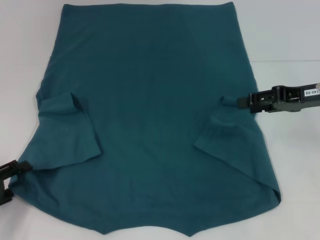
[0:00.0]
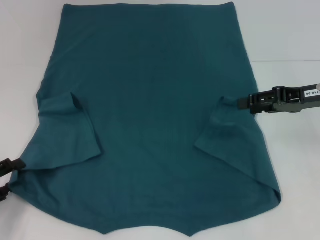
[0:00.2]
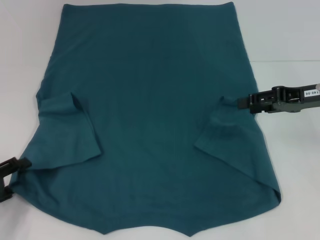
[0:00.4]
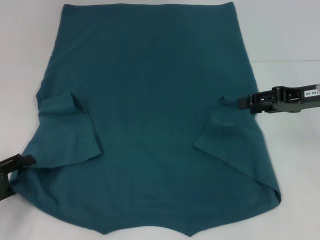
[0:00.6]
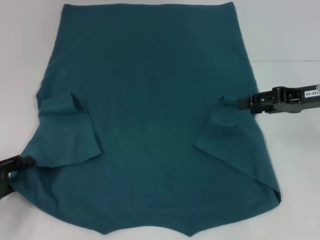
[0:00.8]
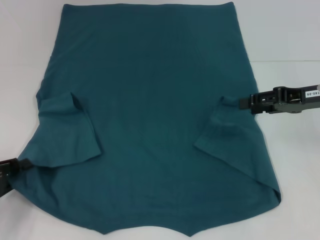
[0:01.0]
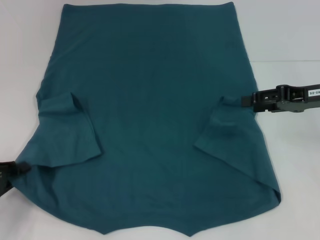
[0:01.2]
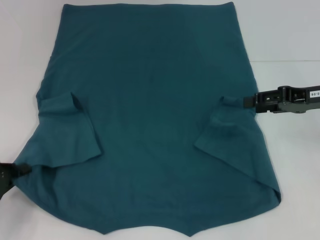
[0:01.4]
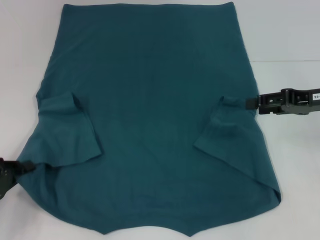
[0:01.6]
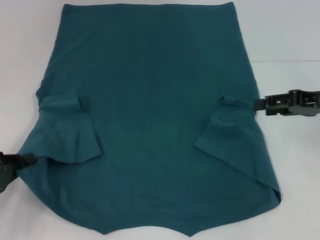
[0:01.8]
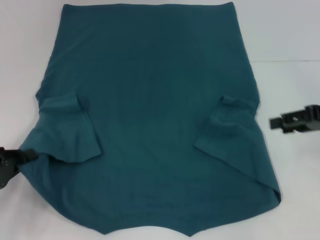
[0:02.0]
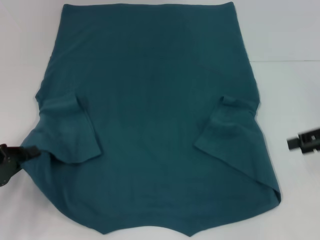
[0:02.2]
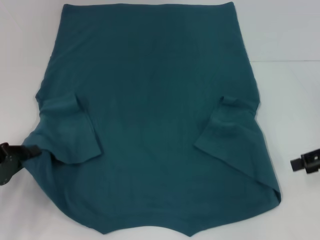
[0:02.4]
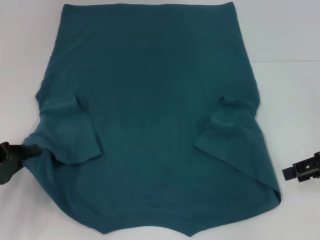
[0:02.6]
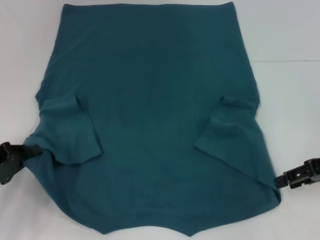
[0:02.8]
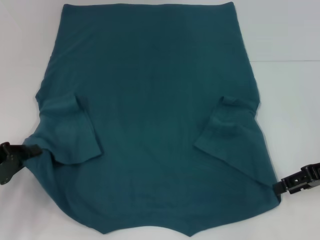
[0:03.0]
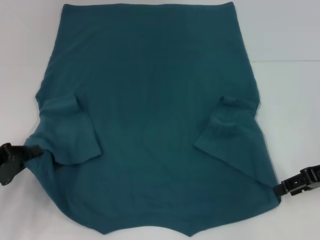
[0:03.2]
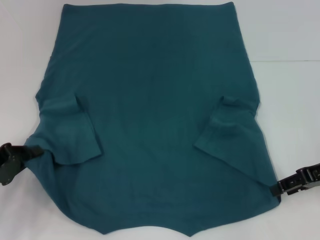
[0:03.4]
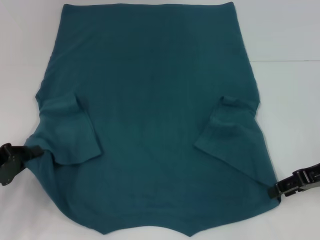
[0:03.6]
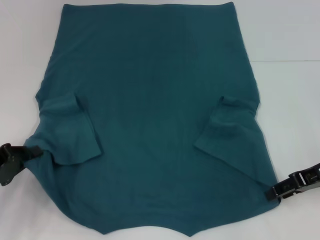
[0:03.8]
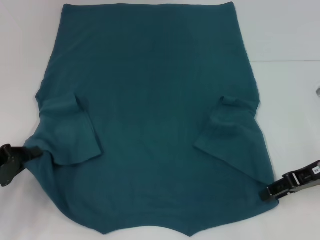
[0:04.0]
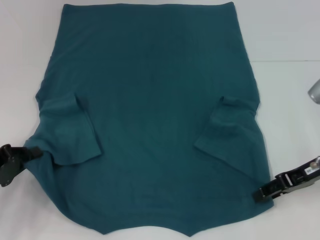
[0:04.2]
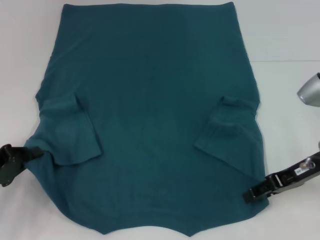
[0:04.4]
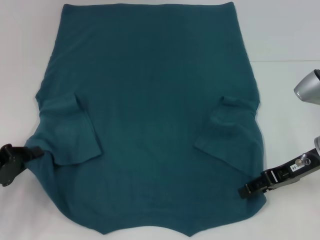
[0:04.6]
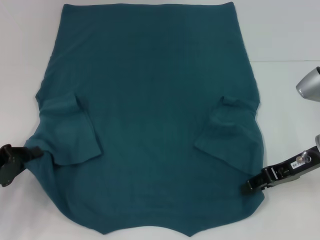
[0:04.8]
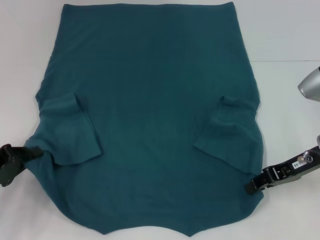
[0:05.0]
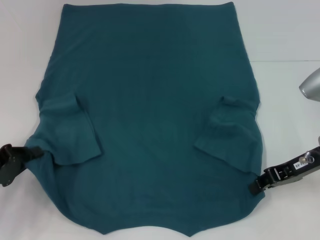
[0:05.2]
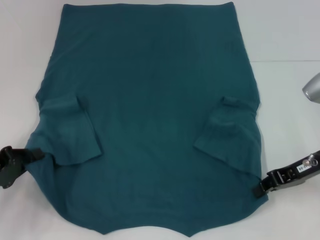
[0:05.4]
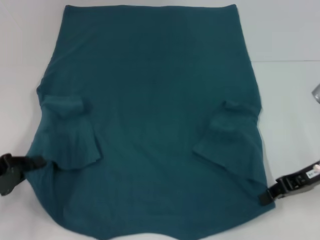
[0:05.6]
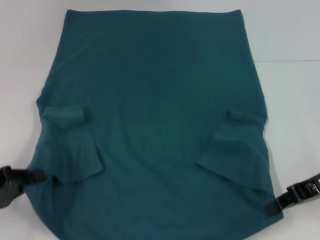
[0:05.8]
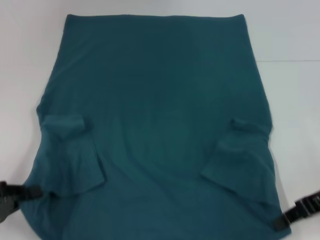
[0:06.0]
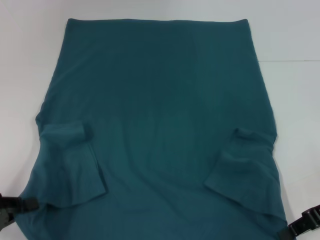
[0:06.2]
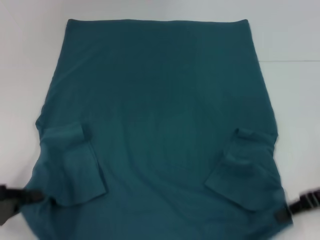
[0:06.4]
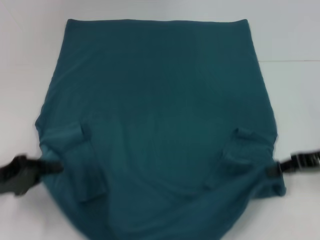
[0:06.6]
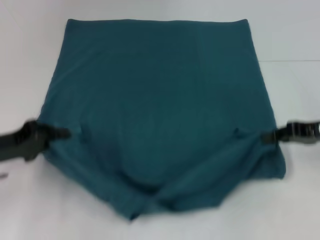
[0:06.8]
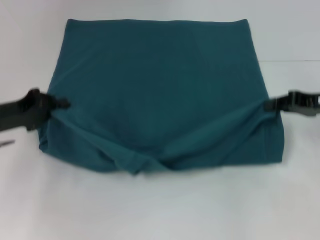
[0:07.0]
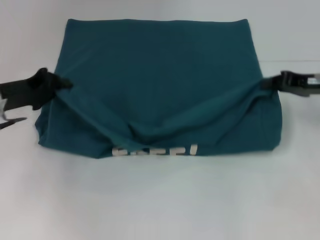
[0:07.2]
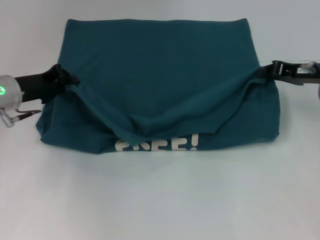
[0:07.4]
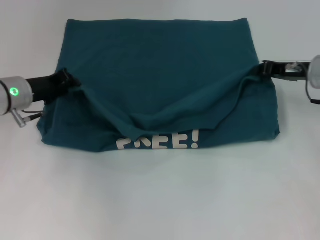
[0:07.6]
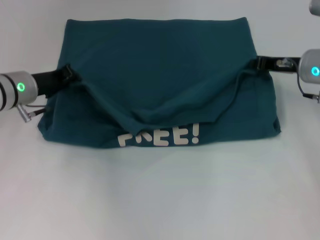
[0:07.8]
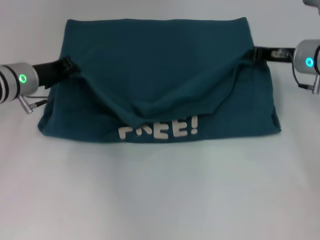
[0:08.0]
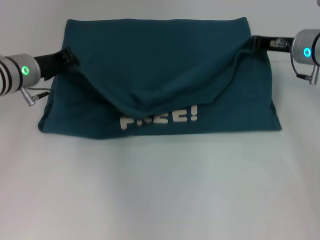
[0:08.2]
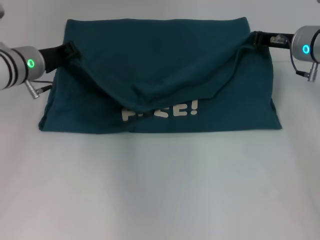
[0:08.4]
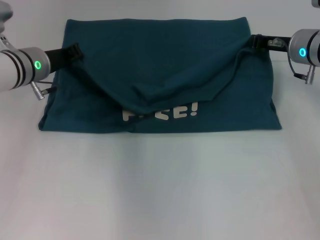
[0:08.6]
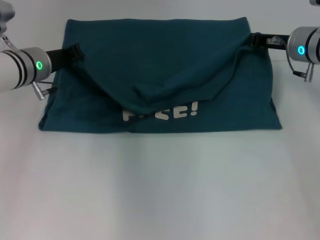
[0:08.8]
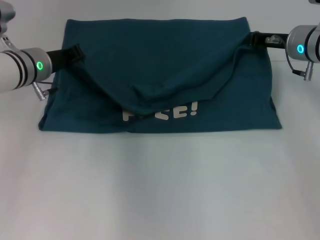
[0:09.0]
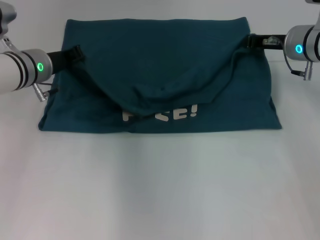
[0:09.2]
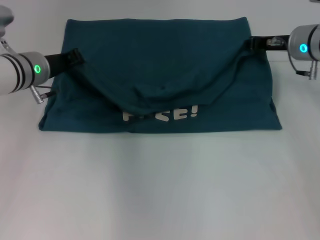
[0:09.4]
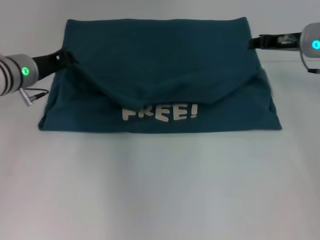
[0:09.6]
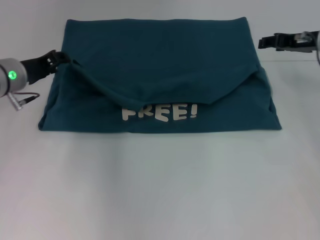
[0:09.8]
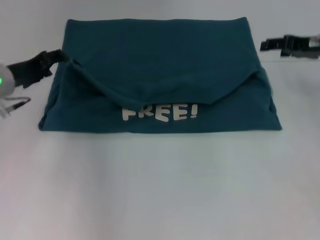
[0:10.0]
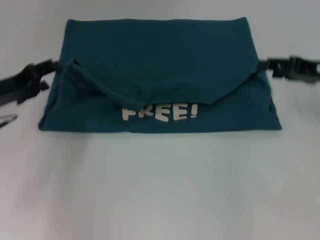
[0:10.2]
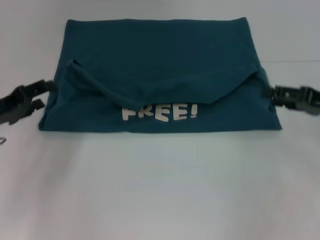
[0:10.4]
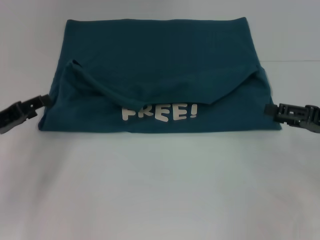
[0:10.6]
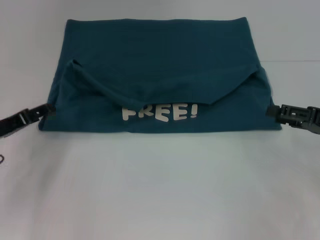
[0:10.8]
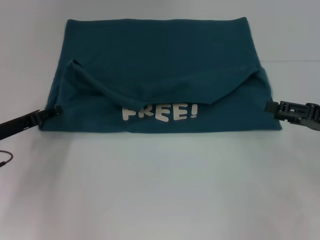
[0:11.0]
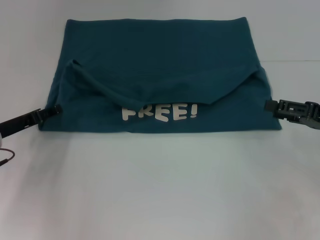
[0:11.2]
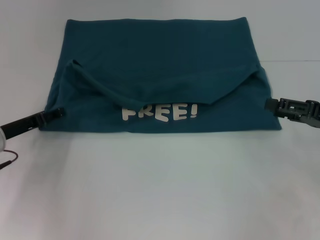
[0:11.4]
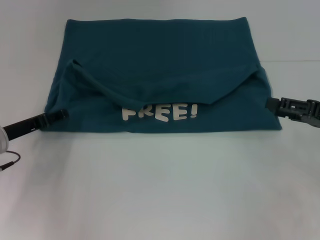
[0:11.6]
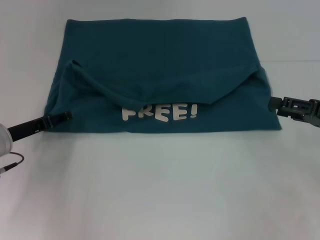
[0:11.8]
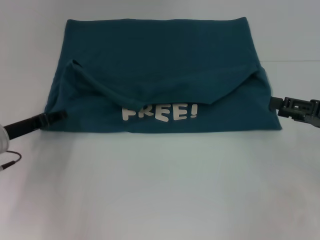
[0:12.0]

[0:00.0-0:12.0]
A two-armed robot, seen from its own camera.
Step, 0:01.4 to 0:05.4: Grab the bottom right corner with your right hand.
Step, 0:05.6 to 0:09.8: Fold the clothes to the left.
Step, 0:05.6 to 0:09.8: Fold the clothes to the right.
0:00.0 to 0:01.6: The left gripper closes its fingers.
0:01.6 to 0:03.0: The right gripper moves some 5 cm.
0:03.0 to 0:04.4: The right gripper heads to the left, covering approximately 5 cm.
0:04.4 to 0:06.0: The right gripper closes.
0:06.0 to 0:07.6: The left gripper moves forward and to the right, roughly 20 cm, while the right gripper travels forward by approximately 10 cm.
0:07.6 to 0:09.0: The right gripper moves roughly 5 cm, while the left gripper shifts by about 5 cm.
0:09.0 to 0:10.4: The right gripper is displaced backward and to the right by about 15 cm, and opens up; the left gripper heads backward and to the left, covering some 15 cm, and opens.
0:10.4 to 0:12.0: The left gripper changes place by roughly 5 cm.

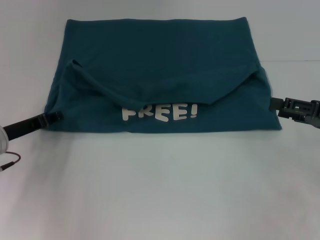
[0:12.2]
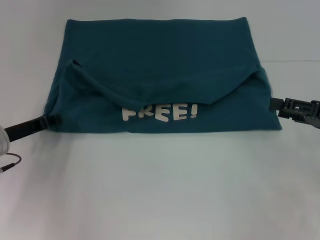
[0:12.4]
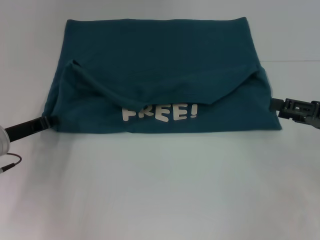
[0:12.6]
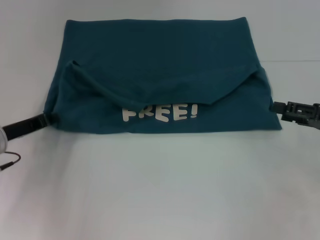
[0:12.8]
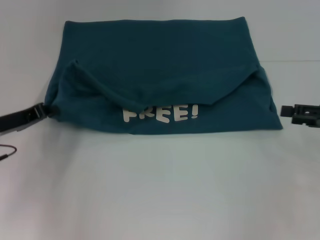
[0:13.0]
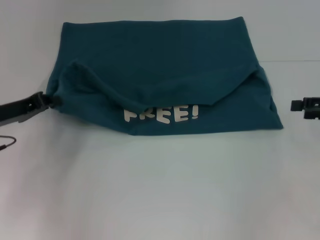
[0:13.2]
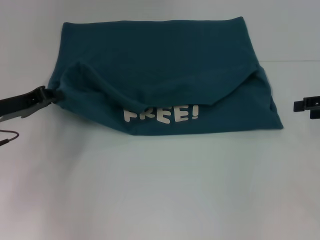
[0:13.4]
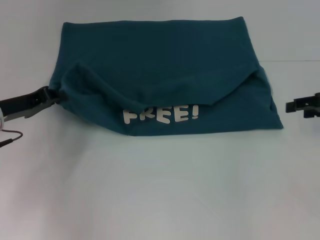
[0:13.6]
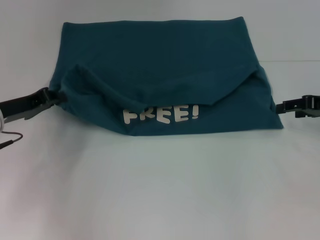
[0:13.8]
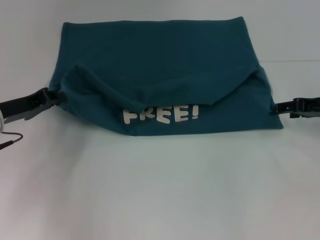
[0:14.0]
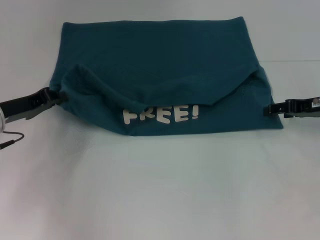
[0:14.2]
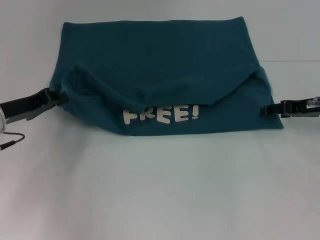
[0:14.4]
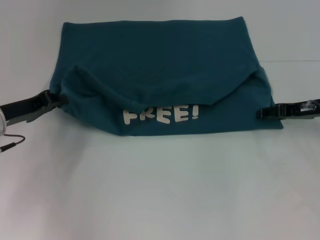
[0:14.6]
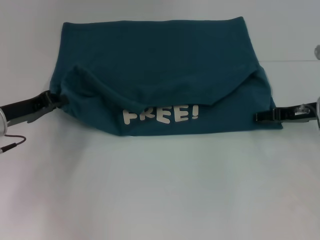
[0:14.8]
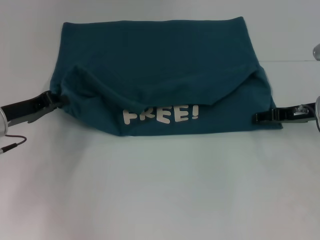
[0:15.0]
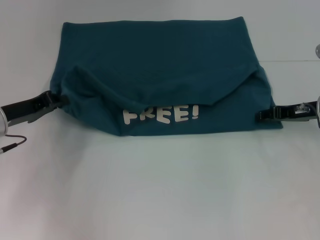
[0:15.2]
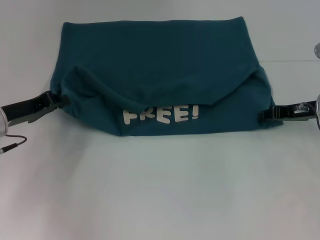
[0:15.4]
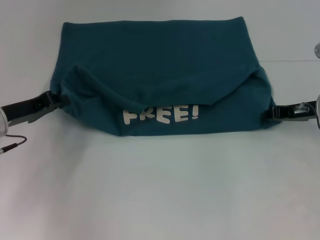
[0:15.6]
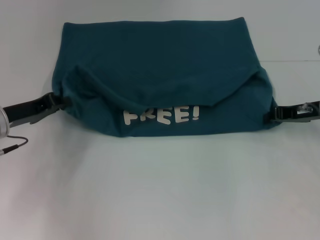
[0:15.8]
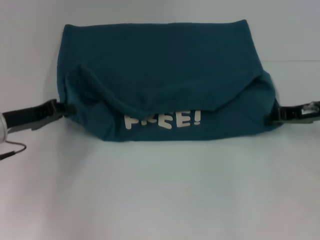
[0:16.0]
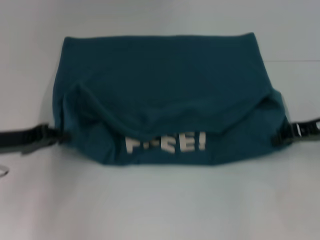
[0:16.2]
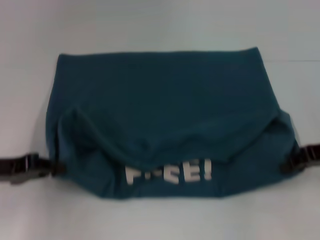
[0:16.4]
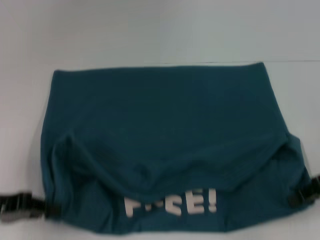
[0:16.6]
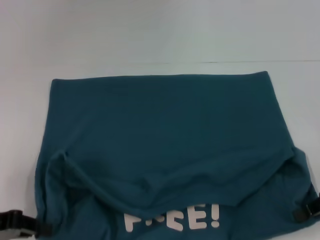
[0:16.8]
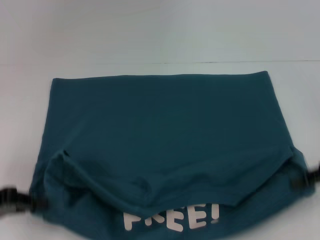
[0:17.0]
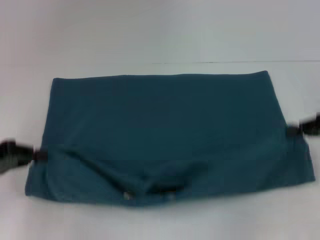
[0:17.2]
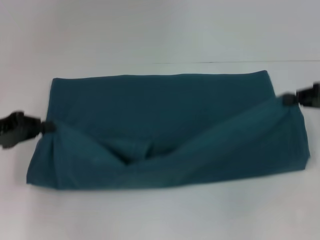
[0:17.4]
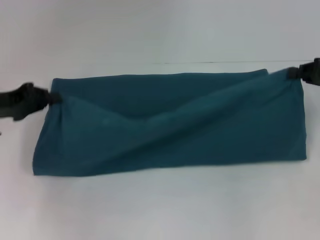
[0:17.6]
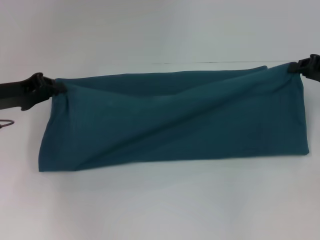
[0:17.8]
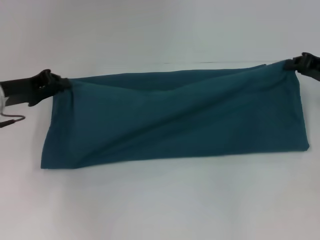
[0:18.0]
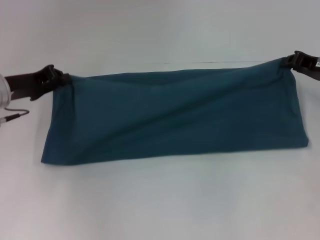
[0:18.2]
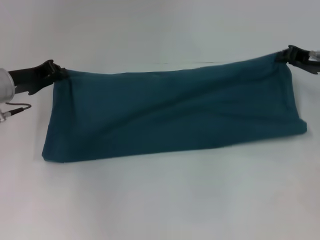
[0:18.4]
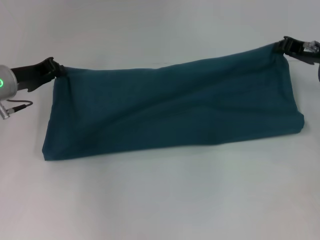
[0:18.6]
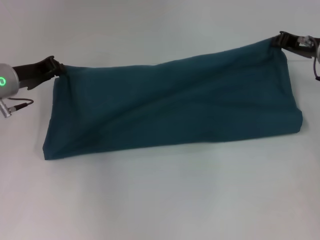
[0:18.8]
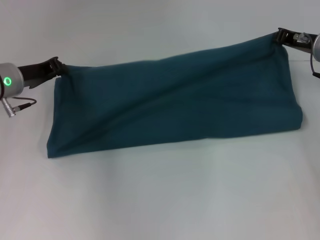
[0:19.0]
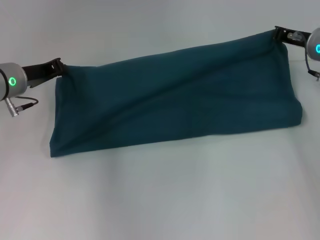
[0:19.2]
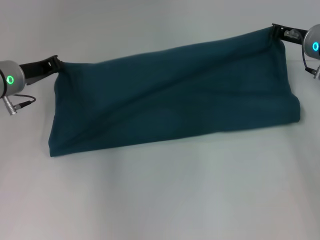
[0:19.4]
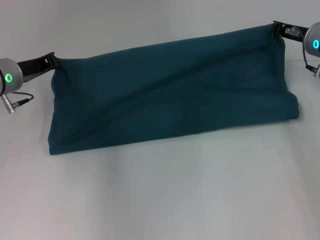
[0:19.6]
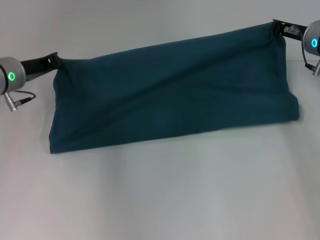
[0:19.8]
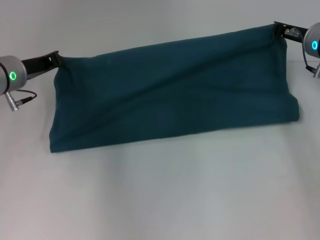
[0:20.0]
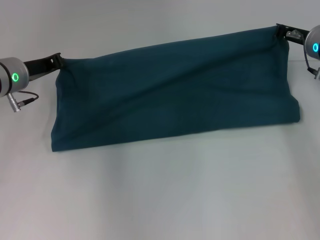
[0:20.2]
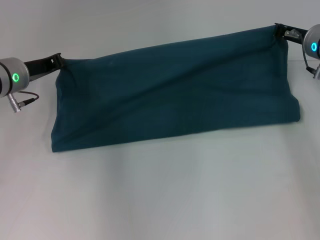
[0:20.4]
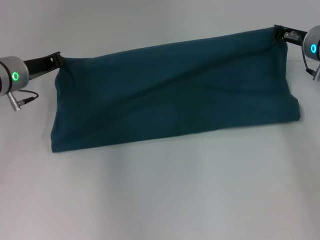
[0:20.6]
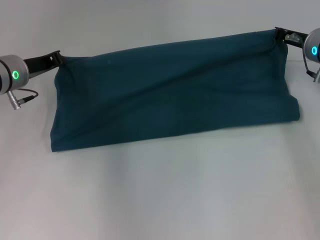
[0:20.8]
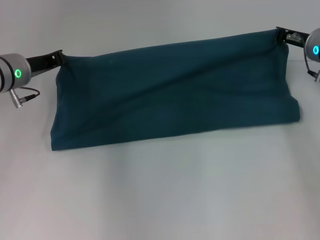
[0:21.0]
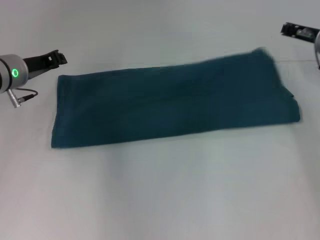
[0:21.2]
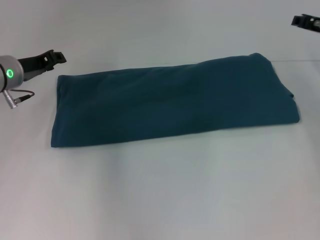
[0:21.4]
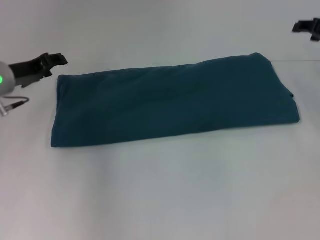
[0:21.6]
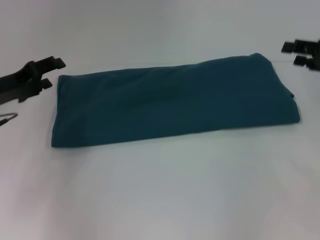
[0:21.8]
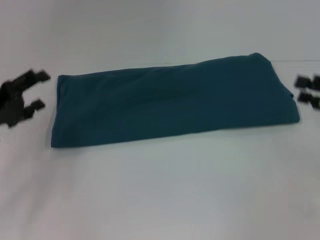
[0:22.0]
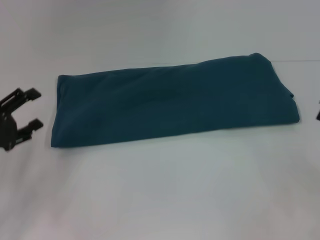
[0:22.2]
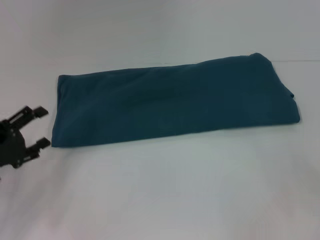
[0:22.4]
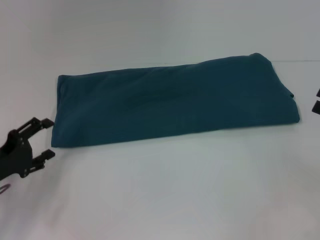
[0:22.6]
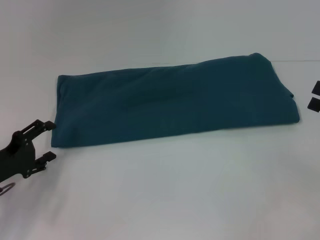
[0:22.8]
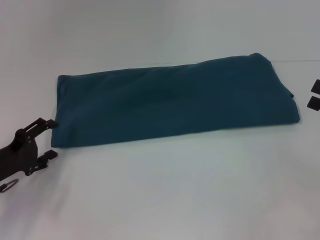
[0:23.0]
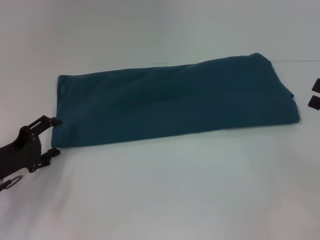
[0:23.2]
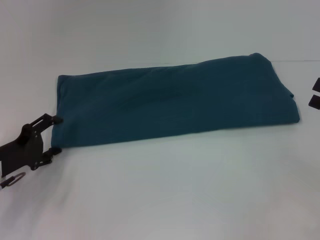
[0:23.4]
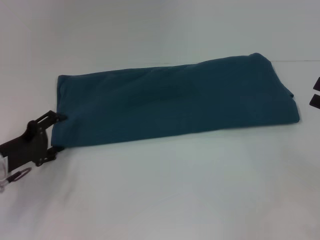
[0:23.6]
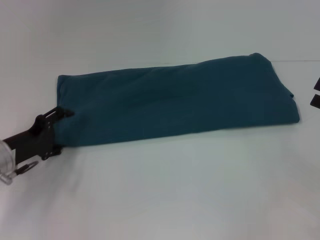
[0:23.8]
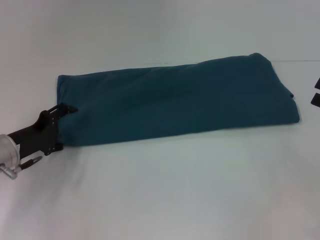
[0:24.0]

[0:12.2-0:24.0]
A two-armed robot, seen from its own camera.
Step, 0:12.2 to 0:16.6: Pull the clothes with your left hand.
Step, 0:12.2 to 0:16.6: Pull the clothes with your right hand.
Step, 0:16.8 to 0:21.2: Fold the clothes to the right.
0:12.2 to 0:13.6: The left gripper closes its fingers, while the right gripper moves forward, some 5 cm.
0:13.6 to 0:15.2: The right gripper shifts about 5 cm to the left.
0:15.2 to 0:16.6: The grippers both shift backward by about 10 cm. The right gripper closes up.
0:16.6 to 0:18.2: The grippers both shift forward by some 10 cm.
0:18.2 to 0:19.6: The right gripper shifts roughly 10 cm to the left and forward.
0:19.6 to 0:21.0: There are only small adjustments of the grippers.
0:21.0 to 0:22.6: The right gripper moves backward and to the right, approximately 25 cm, and opens; the left gripper goes some 20 cm backward and downward, and opens up.
0:22.6 to 0:24.0: The left gripper goes roughly 5 cm forward.
